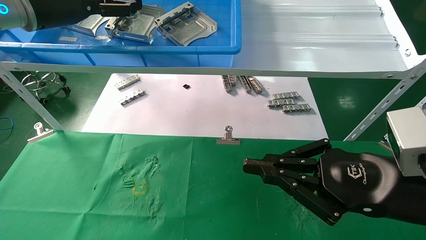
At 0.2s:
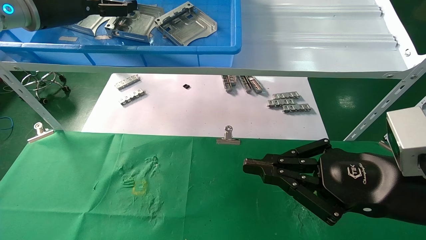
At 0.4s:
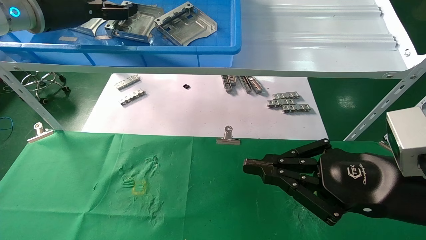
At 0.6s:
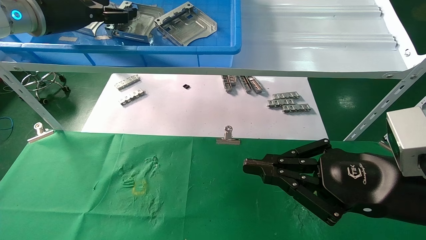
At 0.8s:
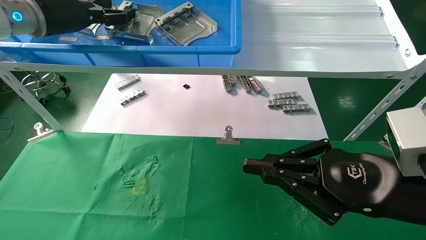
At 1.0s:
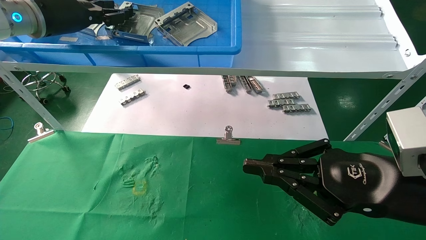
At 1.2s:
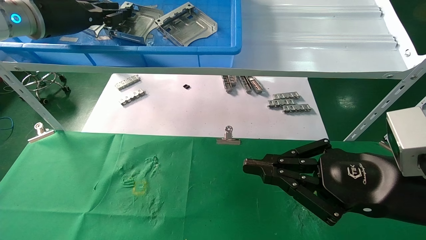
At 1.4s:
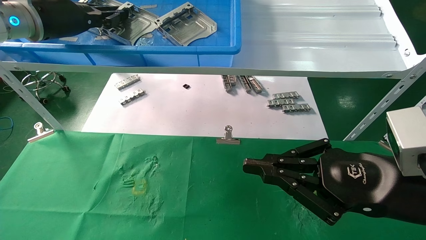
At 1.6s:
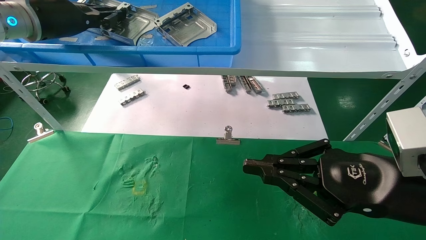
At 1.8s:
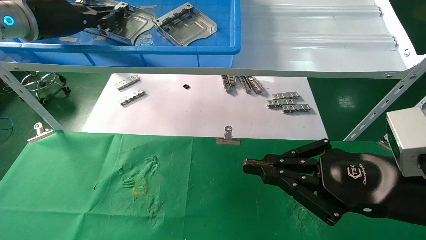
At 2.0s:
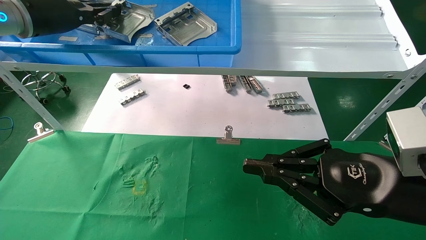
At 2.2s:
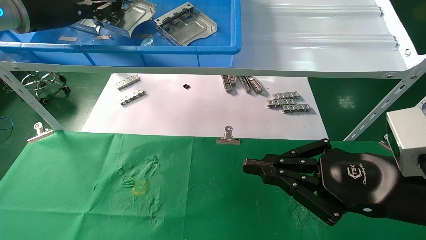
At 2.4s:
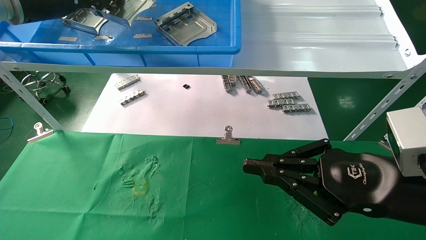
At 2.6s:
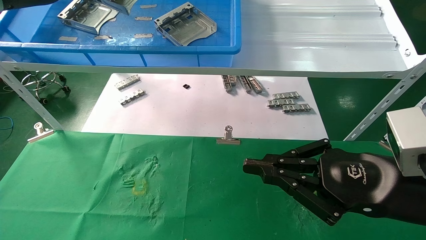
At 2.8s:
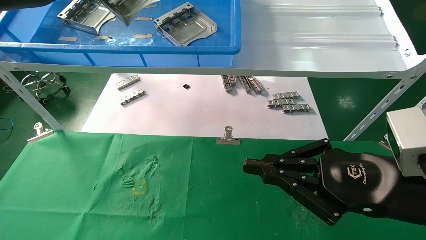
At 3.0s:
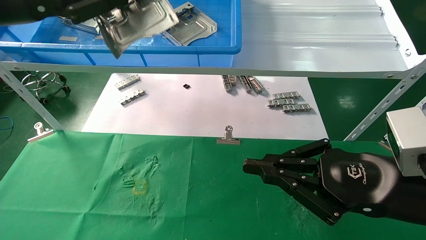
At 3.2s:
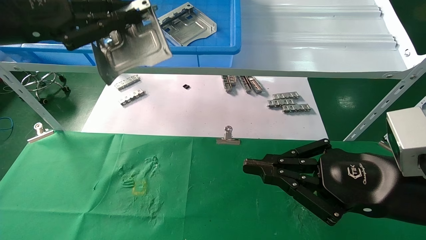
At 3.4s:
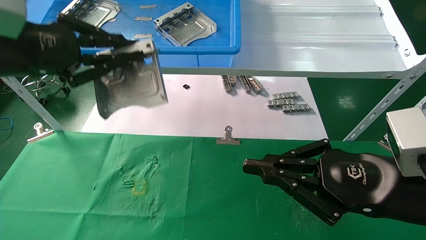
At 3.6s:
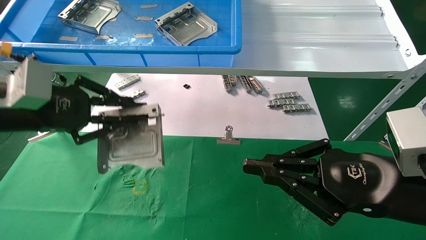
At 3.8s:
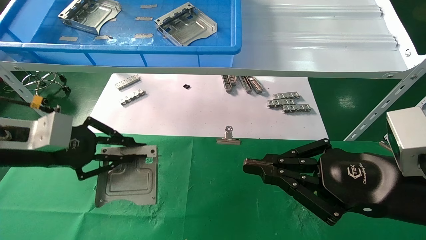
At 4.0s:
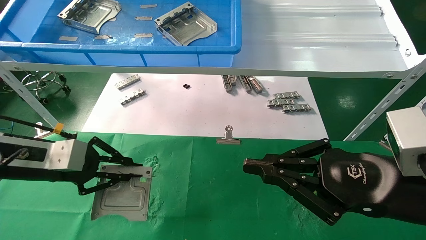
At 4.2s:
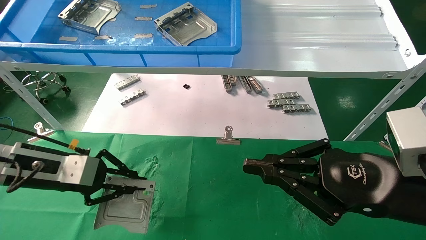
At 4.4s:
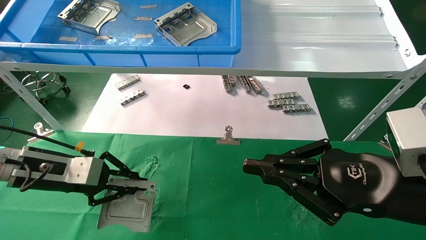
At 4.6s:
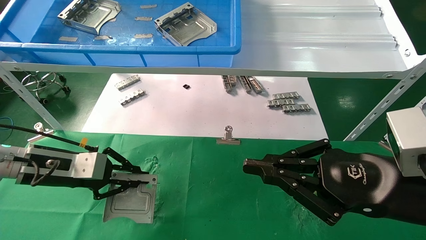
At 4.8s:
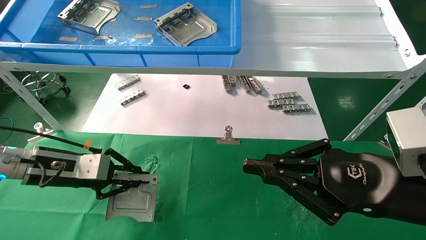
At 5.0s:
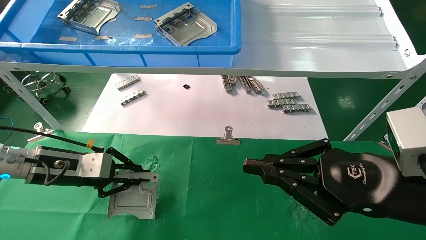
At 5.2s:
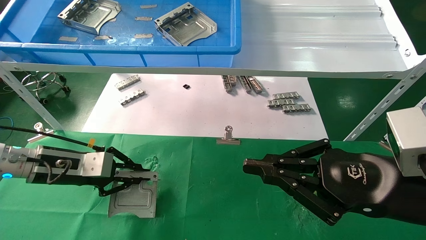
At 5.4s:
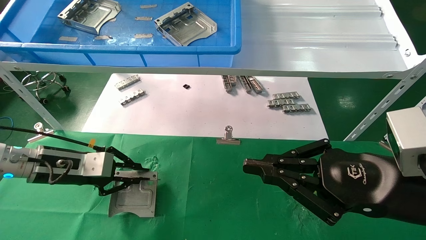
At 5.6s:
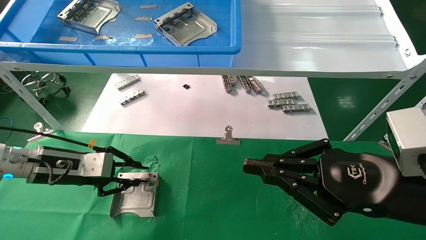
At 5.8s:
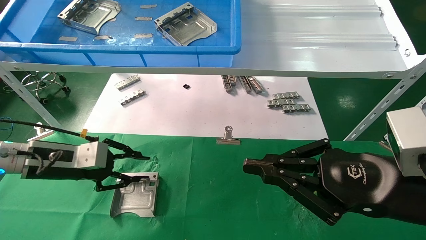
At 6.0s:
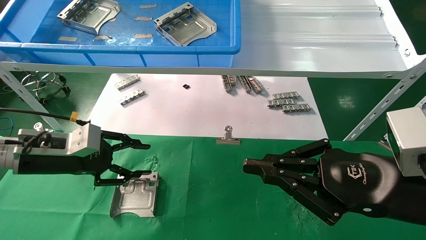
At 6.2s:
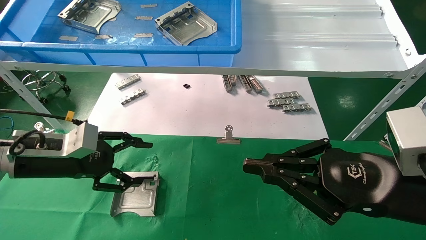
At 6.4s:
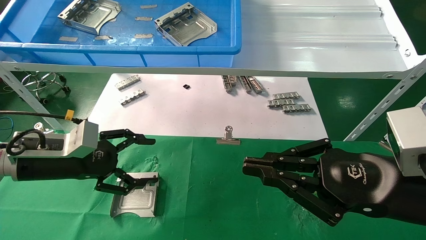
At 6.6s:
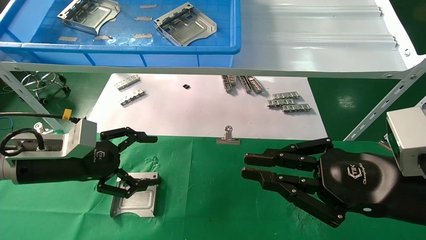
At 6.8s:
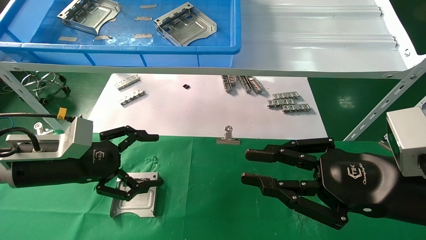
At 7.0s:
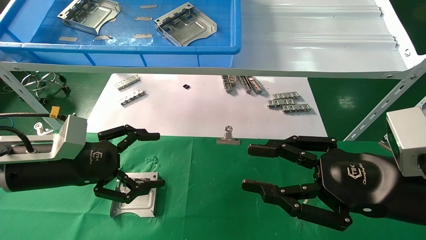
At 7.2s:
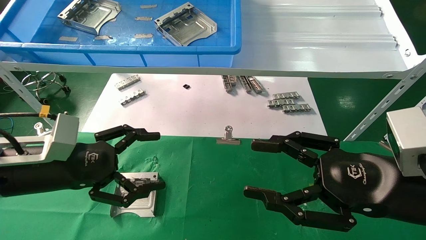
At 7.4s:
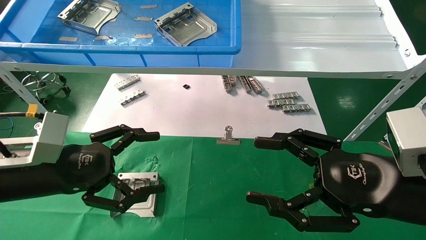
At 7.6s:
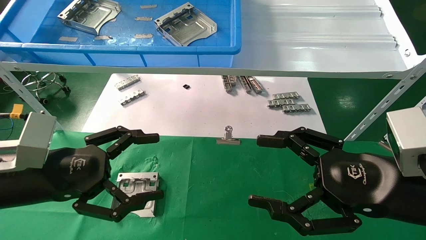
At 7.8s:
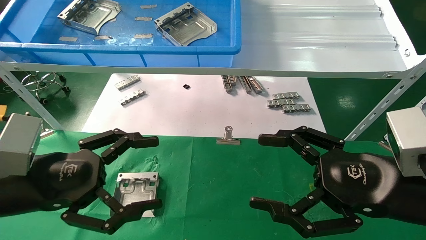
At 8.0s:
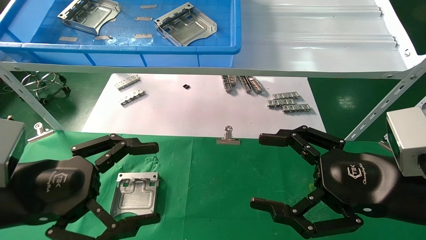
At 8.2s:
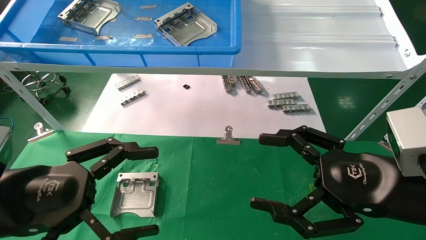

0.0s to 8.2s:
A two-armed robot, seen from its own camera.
Task of the whole recording: use the mechanical arm to pick up the parts and place them on the table.
Step, 0.0s to 1.6s: Pick up the hard drive bracket from the feeding area.
Step, 1.8s to 5.8s: Place the hard drive bracket into the box.
0.0s to 1.6s: The left gripper closes up.
1.6s to 3.2s: The left gripper moves backward, approximately 15 cm.
3.2s to 5.0s: The left gripper is displaced downward by approximately 25 cm.
5.0s to 6.6s: The left gripper ends up about 5 cm from where it was, and opens up.
6.6s to 8.2s: The right gripper opens up. Meanwhile the left gripper heads backward, covering roughly 15 cm.

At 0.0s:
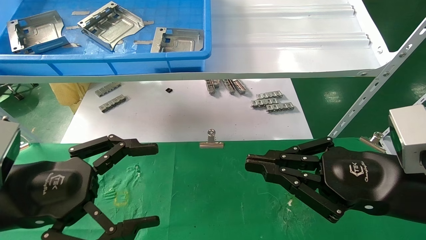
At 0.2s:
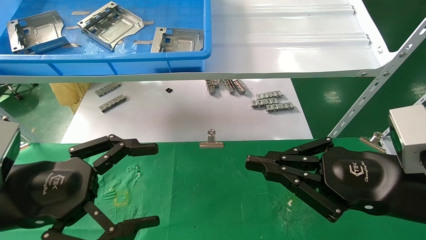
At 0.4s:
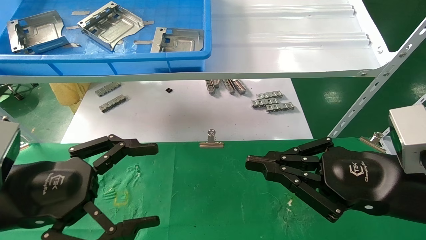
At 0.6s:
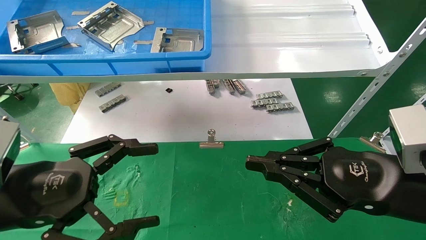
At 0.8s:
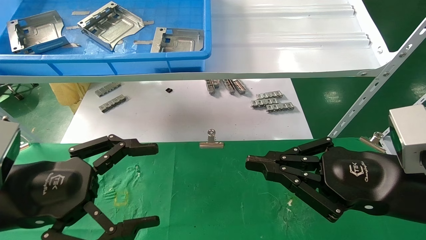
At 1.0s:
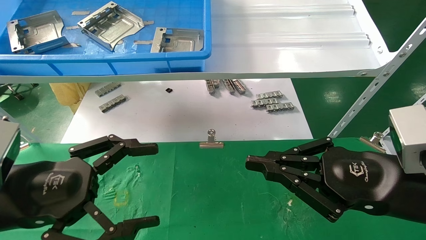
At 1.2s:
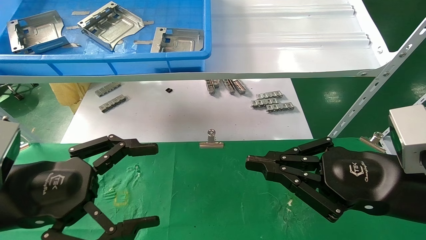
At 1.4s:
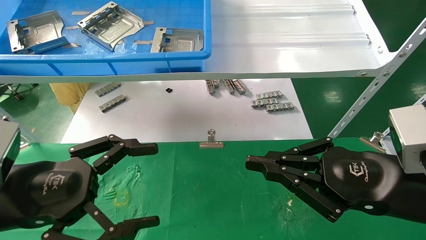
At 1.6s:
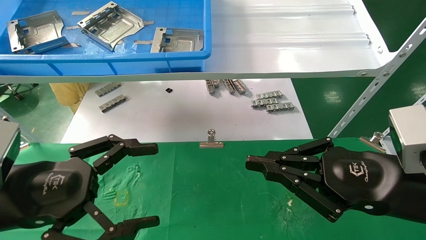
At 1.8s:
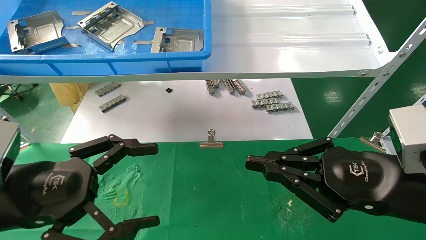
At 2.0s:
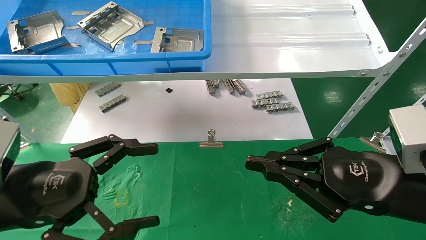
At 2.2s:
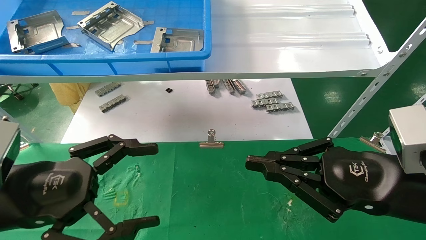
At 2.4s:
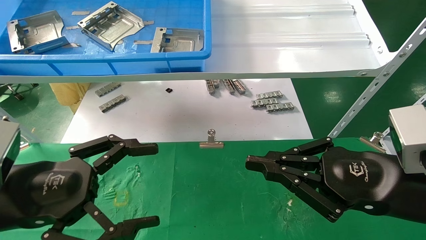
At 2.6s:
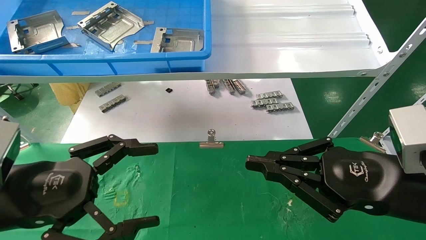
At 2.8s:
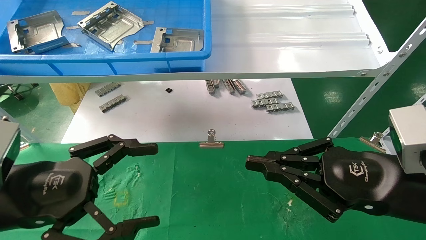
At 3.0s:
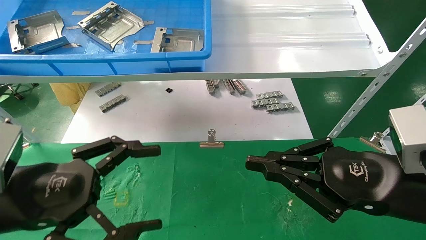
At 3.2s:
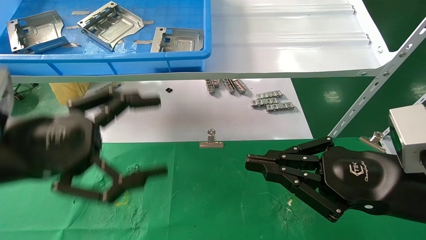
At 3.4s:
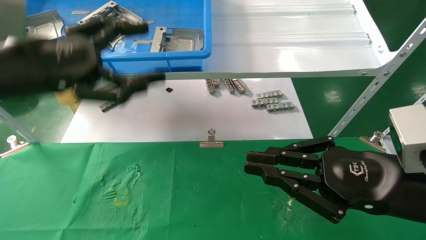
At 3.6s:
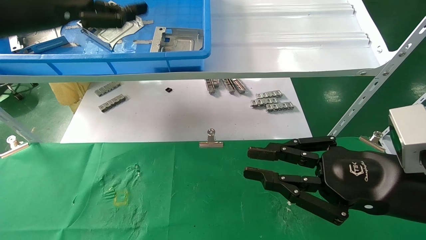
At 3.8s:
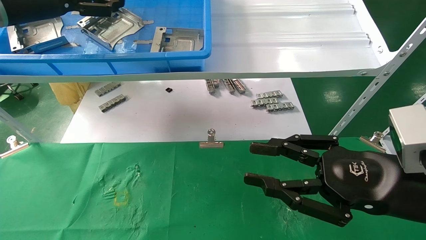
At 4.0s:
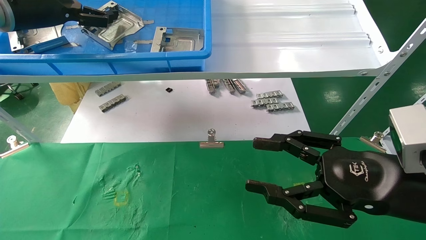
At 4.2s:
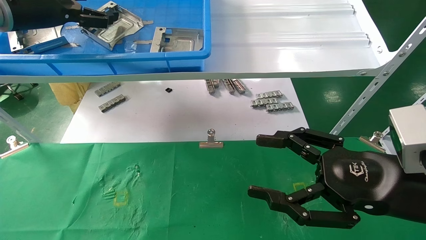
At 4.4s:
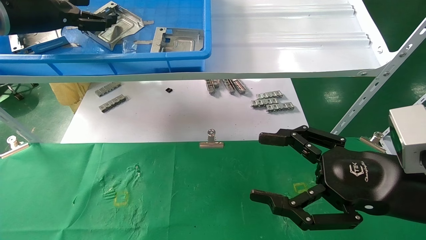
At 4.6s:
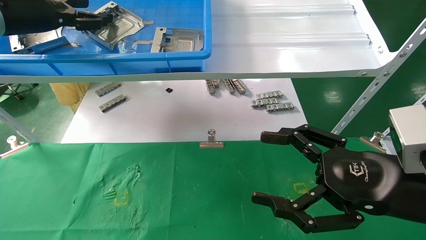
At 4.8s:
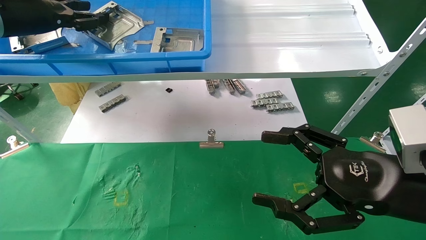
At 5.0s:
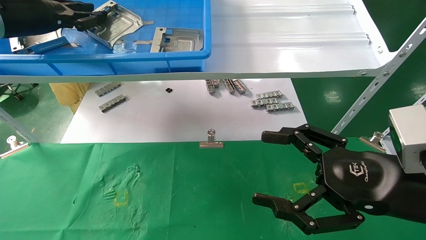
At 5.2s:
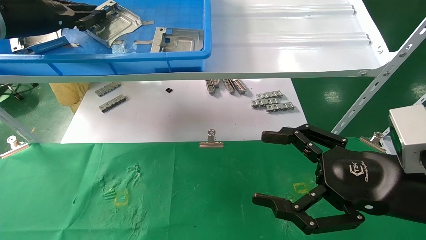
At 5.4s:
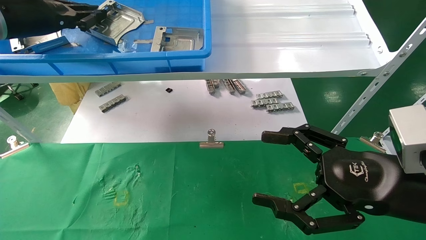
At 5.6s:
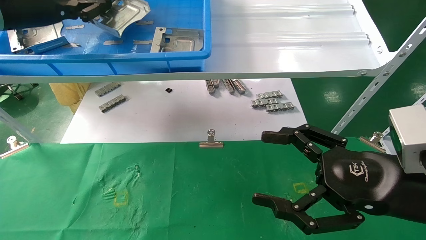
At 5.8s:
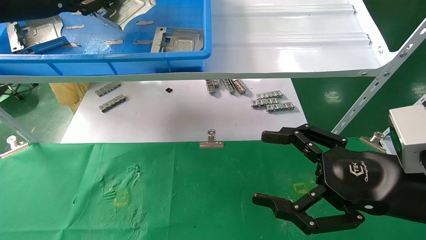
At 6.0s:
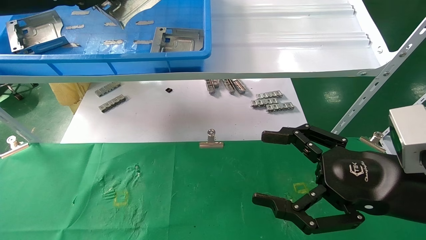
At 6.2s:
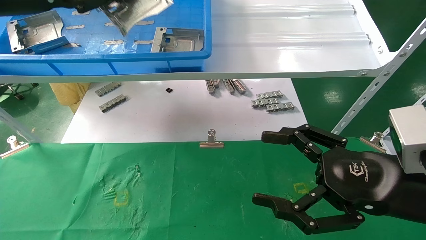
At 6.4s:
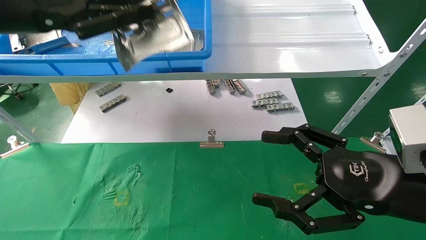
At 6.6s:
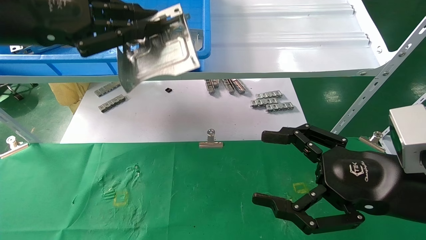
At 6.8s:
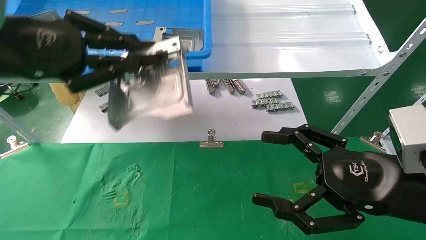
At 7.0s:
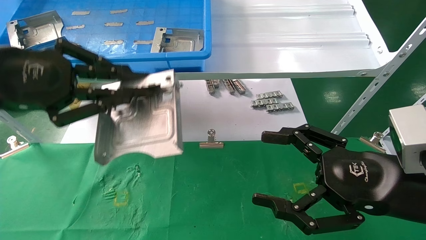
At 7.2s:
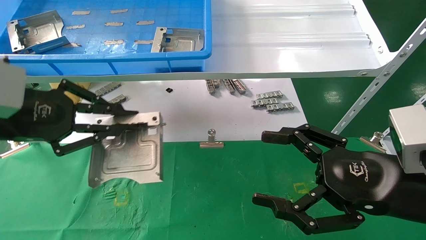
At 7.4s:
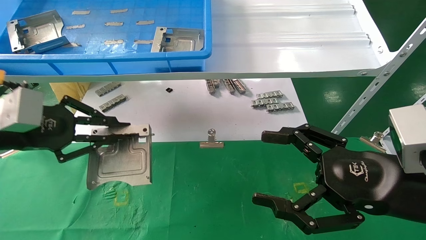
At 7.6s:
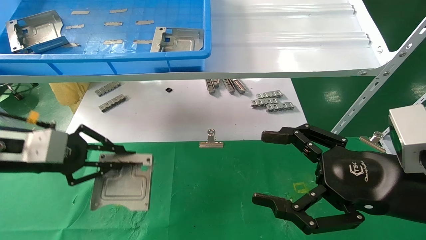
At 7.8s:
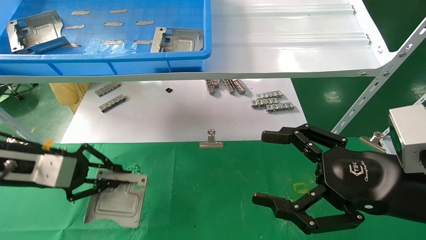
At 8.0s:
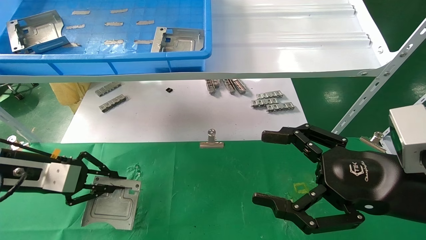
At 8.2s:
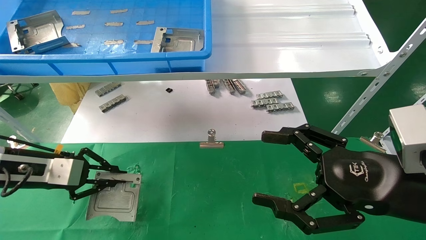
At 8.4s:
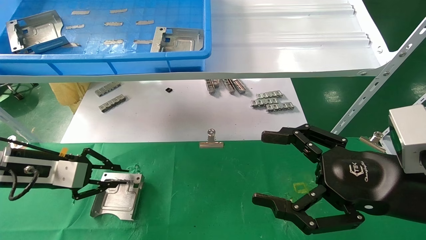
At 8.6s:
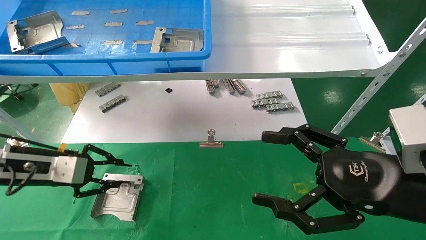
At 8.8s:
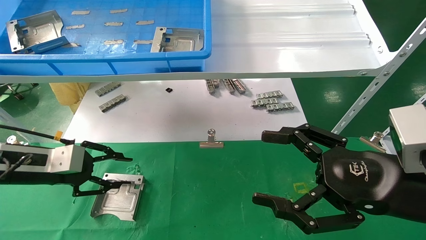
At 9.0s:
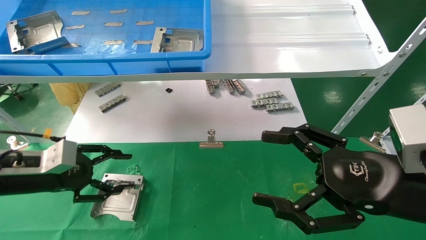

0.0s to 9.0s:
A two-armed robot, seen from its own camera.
Task of the whole recording: use the mechanical arm to pick up the parts and place them on the table.
Step, 3.4s to 6.0s: Pick up the hard drive bracket from the feeding area.
Step, 6.2s to 8.6s: Place the hard drive bracket into the box.
0.0s to 1.6s: Both grippers stay about where they are.
1.6s to 3.0s: The grippers stay close to where they were, moving slightly.
3.0s to 4.4s: The left gripper heads forward and upward, covering approximately 30 cm. Meanwhile the right gripper opens up.
4.4s to 6.0s: The left gripper travels backward by approximately 5 cm, and closes up.
6.0s to 7.6s: The left gripper goes about 20 cm downward.
7.6s to 9.0s: The left gripper heads downward, covering about 5 cm, and opens.
